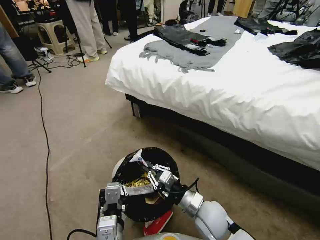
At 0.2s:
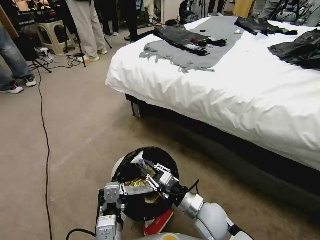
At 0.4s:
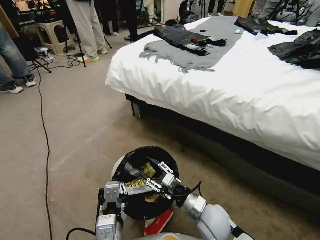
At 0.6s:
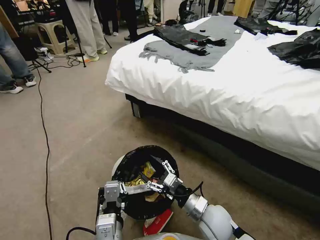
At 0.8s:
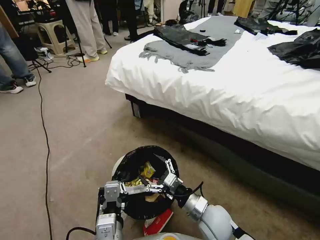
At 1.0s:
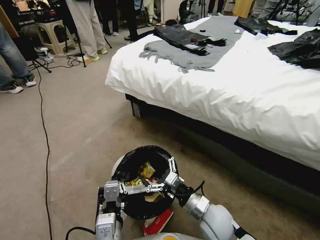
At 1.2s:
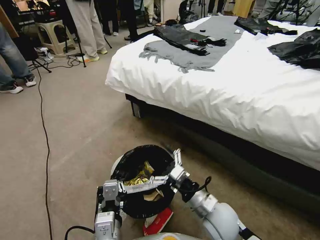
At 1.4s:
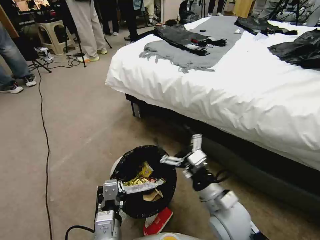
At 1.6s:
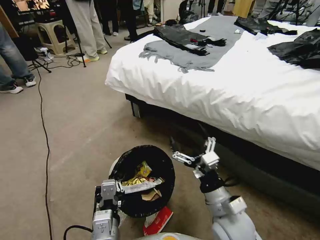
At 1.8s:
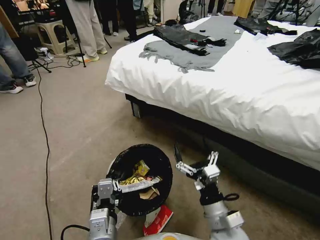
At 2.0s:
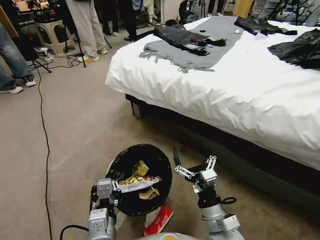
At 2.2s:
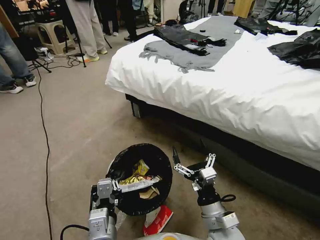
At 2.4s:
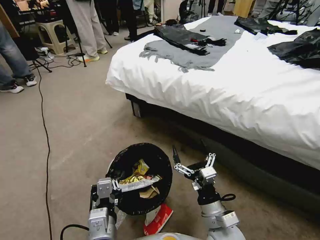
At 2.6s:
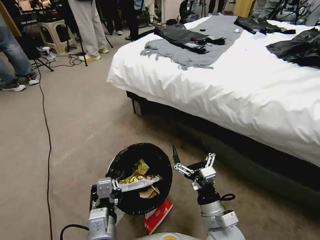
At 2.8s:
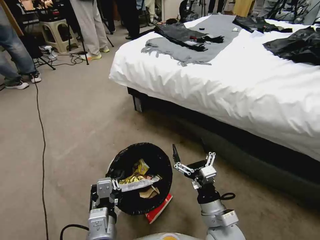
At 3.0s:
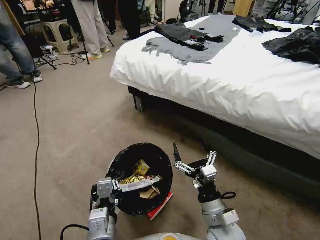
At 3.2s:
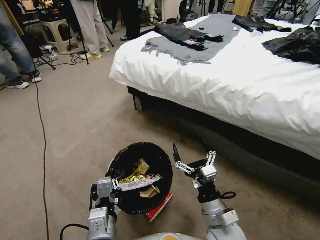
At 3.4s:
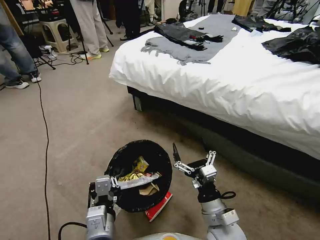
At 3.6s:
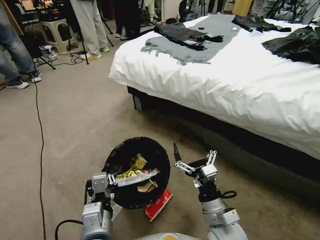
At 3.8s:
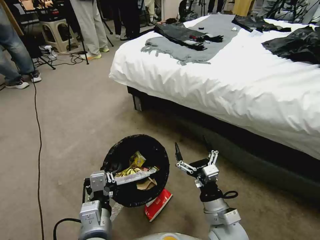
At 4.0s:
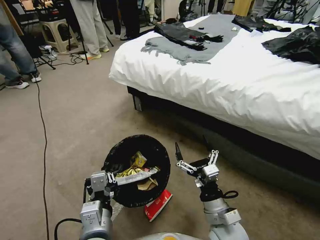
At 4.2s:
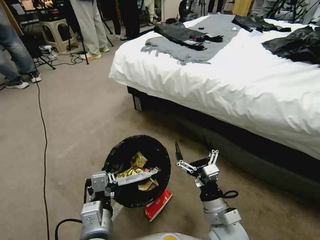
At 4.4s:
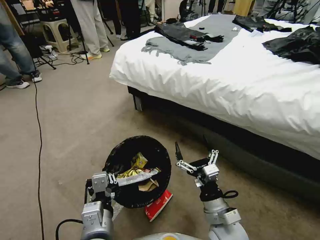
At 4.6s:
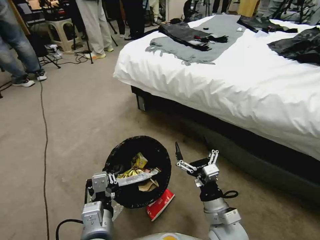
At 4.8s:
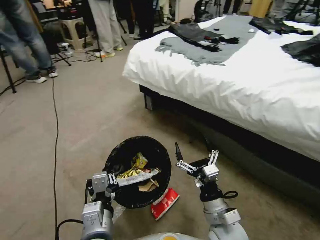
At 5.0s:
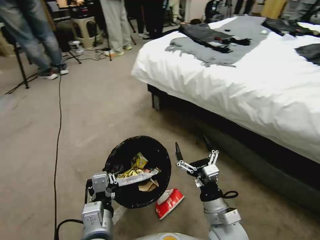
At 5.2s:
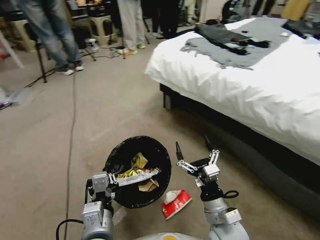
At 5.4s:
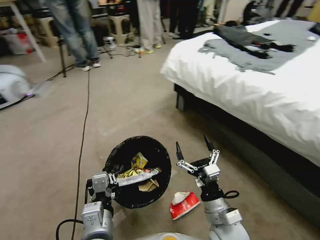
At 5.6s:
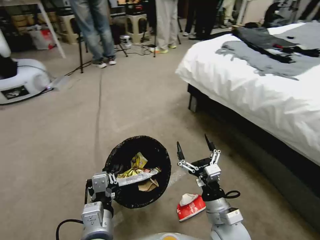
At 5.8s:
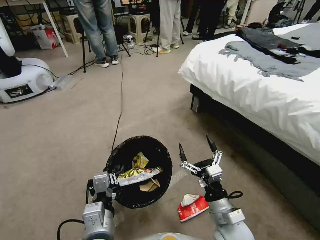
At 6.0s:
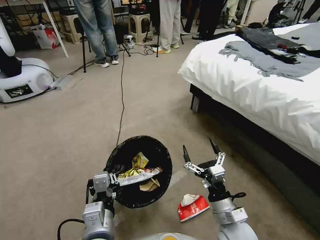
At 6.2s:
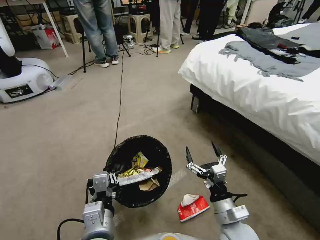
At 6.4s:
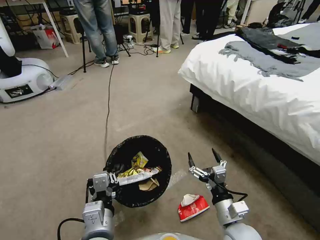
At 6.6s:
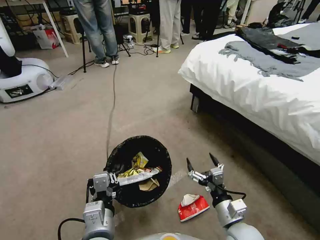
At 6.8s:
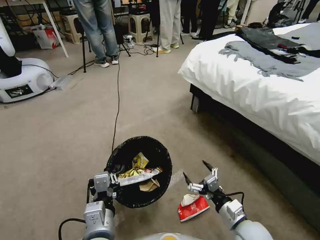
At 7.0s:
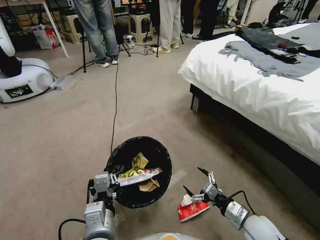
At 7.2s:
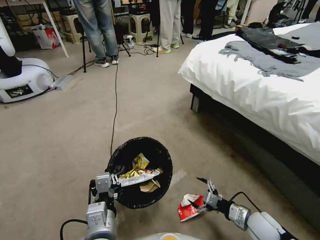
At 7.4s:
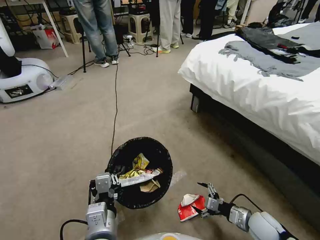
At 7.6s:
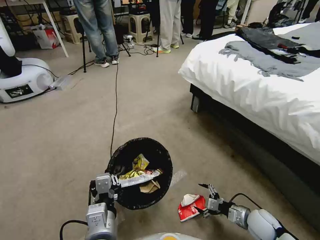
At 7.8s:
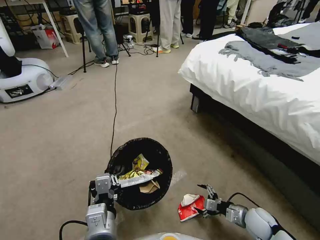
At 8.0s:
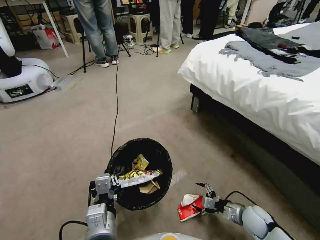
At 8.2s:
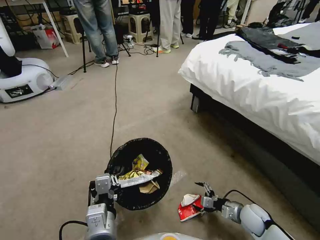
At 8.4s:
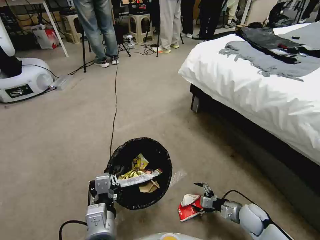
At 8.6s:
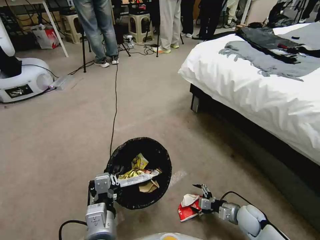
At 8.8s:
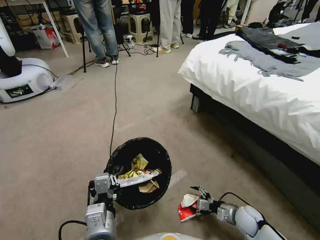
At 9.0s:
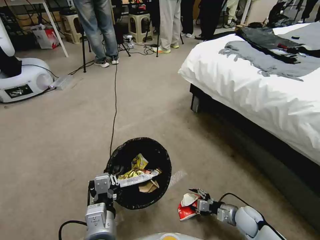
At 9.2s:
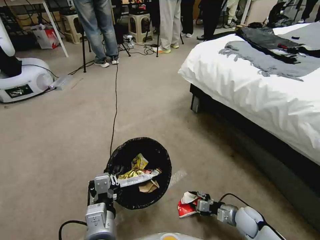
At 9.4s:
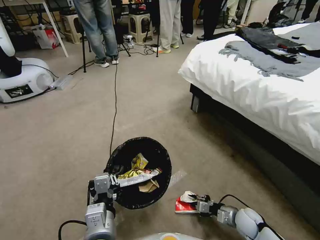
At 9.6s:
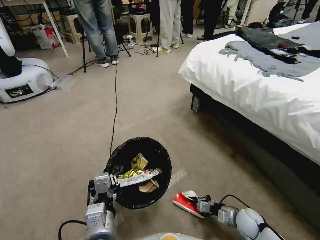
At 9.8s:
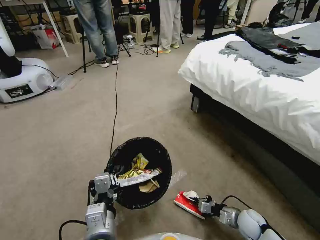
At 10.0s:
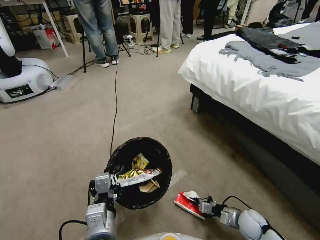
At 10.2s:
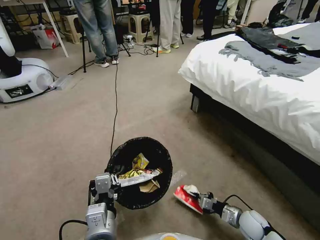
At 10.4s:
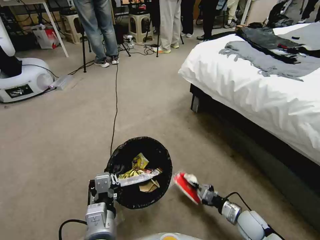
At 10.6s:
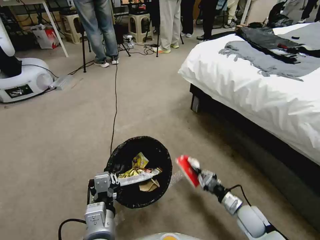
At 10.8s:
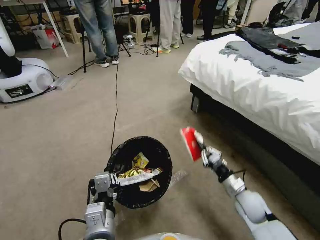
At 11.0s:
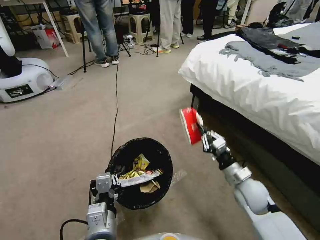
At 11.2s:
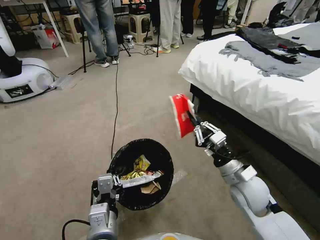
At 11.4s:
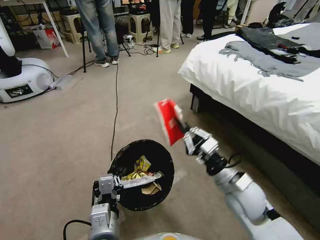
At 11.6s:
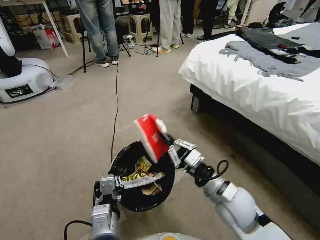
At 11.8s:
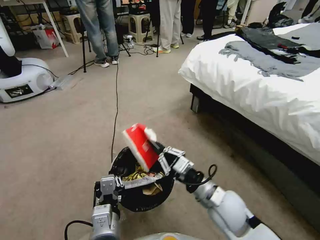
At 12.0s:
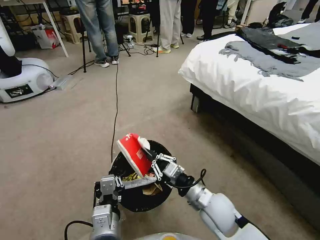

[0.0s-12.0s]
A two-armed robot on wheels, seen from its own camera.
Task of the whole recording: Pick up the trash bin, then pick up the garbage from the floor and place it into the trash bin.
0.0s to 1.6s: The right gripper goes about 10 cm upward, and opens.
1.6s to 3.0s: The right gripper goes some 5 cm downward.
3.0s to 4.4s: The grippers stay close to where they were, moving slightly.
6.0s to 7.6s: The right gripper moves to the right and downward, some 20 cm.
7.6s to 9.0s: The right gripper goes about 5 cm downward.
9.0s to 10.4s: The right gripper closes its fingers.
10.4s to 12.0s: The right gripper is displaced to the left and upward by roughly 25 cm.

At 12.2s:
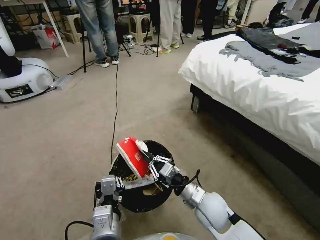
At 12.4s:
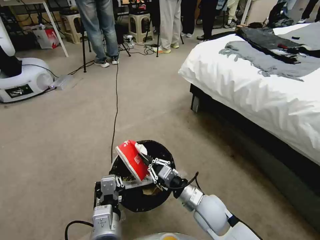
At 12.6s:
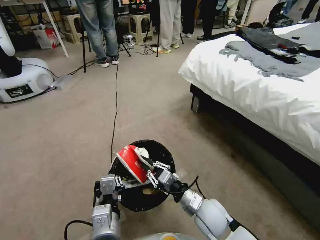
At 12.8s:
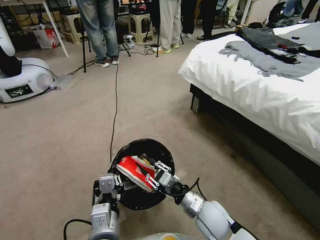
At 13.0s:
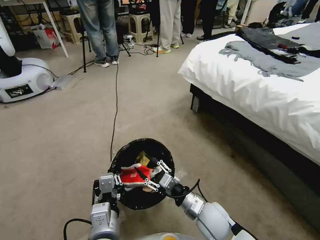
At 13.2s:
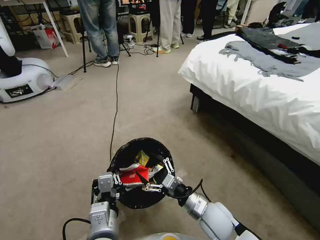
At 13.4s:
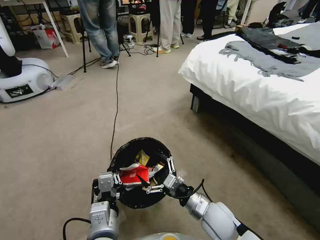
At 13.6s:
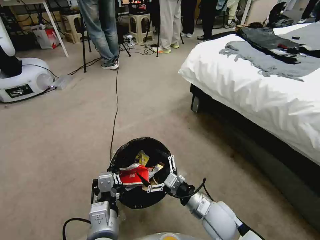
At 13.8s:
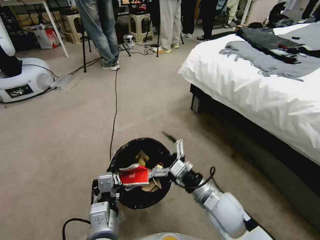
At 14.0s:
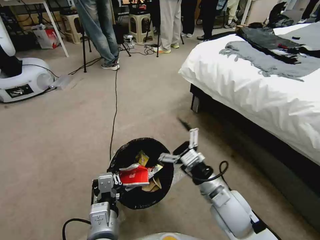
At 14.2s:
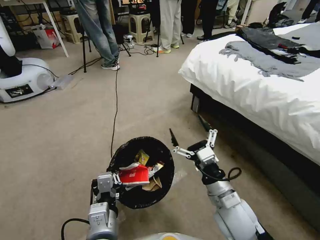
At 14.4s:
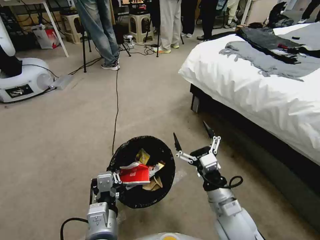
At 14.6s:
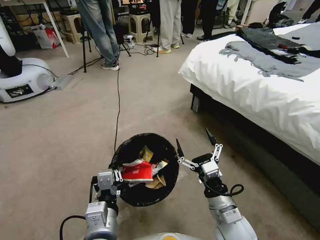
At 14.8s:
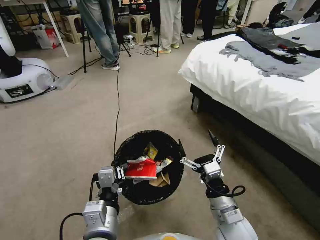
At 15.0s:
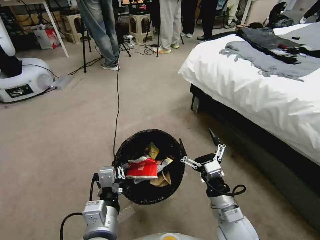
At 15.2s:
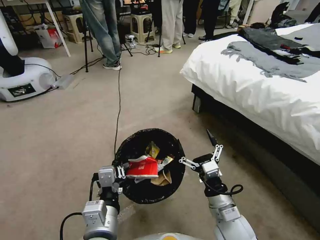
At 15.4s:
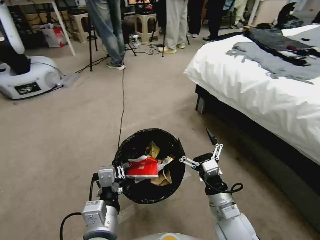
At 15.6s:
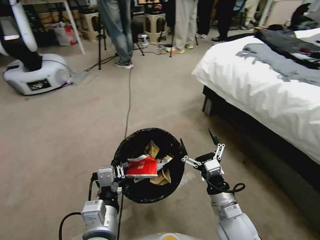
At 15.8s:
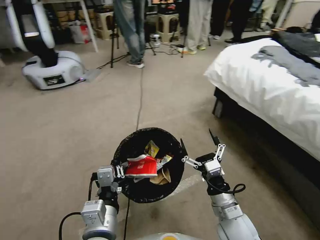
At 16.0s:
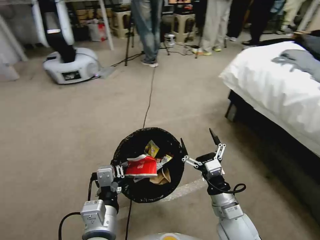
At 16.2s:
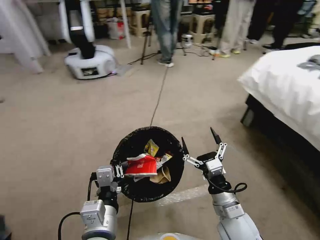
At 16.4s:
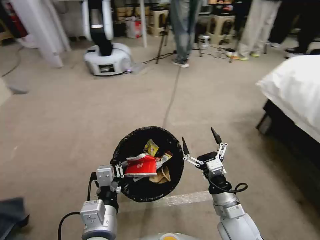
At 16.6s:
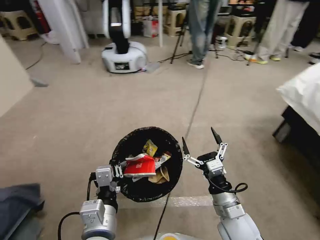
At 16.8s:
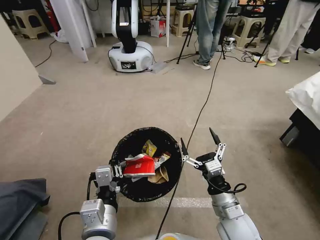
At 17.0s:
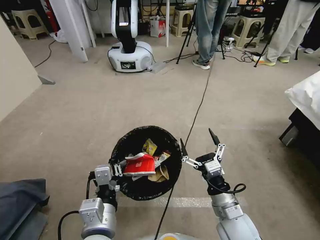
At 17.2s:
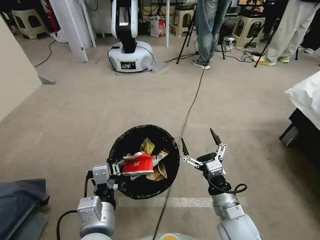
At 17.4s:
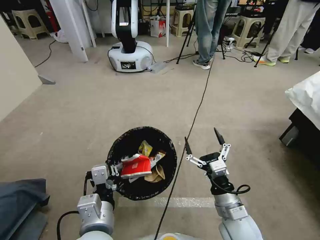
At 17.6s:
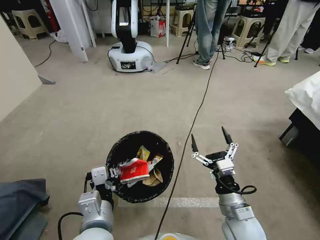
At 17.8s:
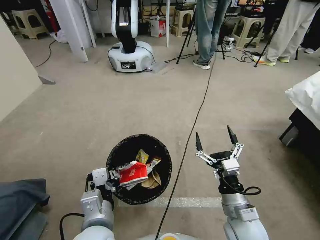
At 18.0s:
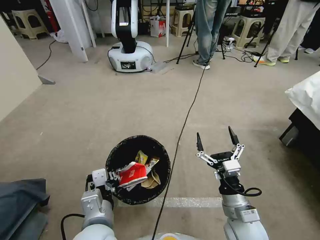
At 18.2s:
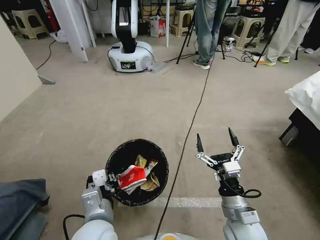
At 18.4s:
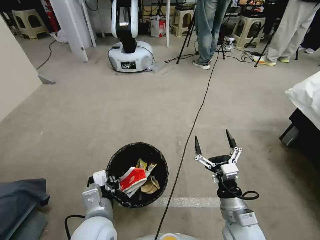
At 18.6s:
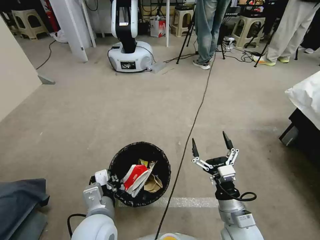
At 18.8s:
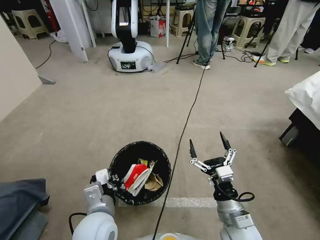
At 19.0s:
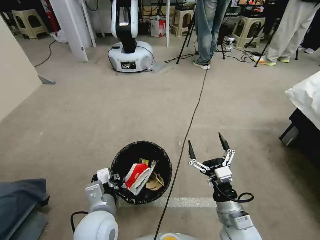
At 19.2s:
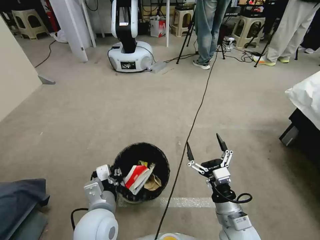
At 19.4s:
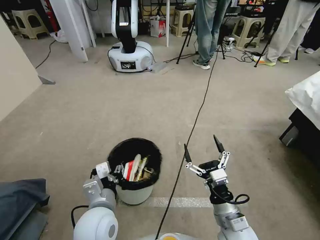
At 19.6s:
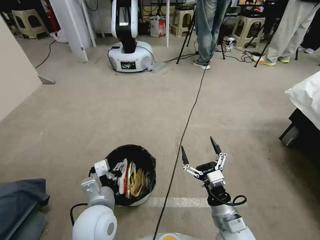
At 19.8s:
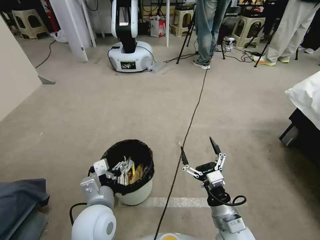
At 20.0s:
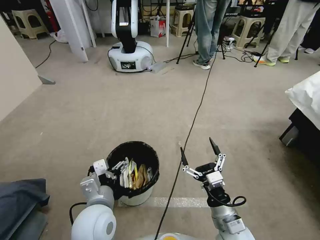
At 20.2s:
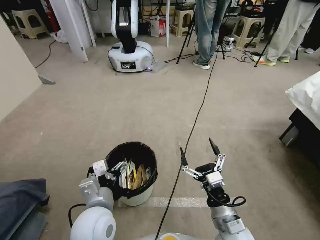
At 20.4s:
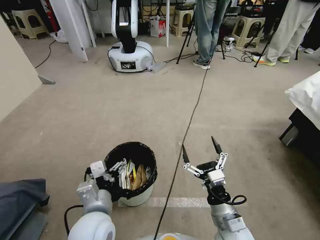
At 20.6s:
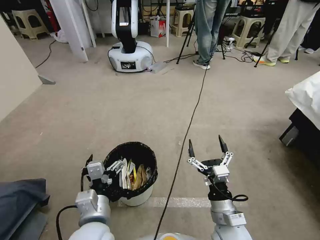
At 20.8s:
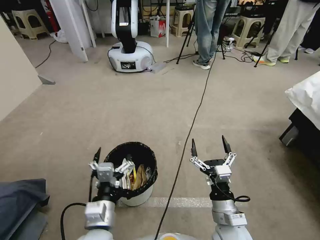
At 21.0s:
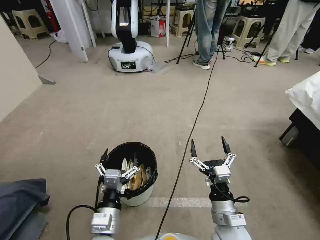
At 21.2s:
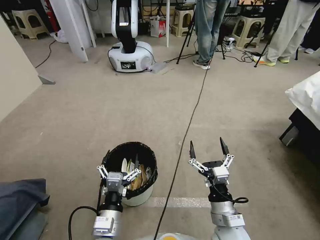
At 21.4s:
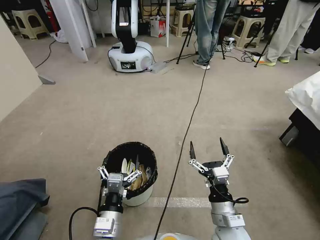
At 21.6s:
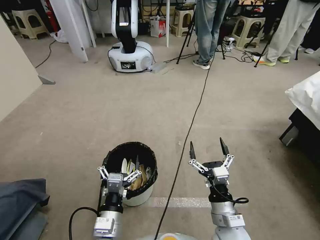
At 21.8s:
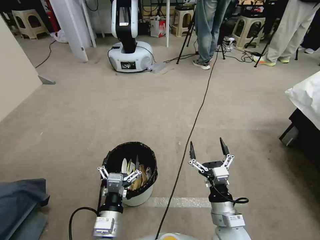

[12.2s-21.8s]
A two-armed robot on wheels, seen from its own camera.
Task of the whole recording: Pick up the trash bin, then pick up the garbage from the floor and place it into the trash bin.
12.2s to 13.8s: The right gripper opens up.
13.8s to 15.4s: The right gripper ends up roughly 5 cm from where it was.
17.0s to 18.6s: The left gripper shifts by some 5 cm.
18.6s to 20.2s: The left gripper opens up.
20.2s to 21.8s: The left gripper heads downward and backward, covering approximately 10 cm.

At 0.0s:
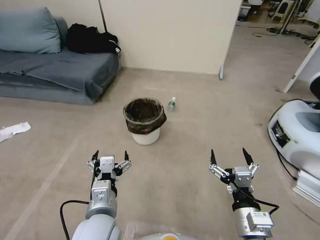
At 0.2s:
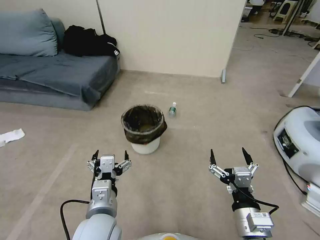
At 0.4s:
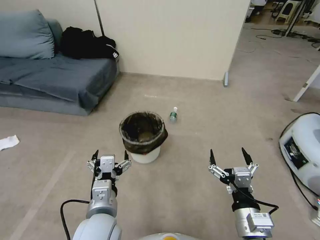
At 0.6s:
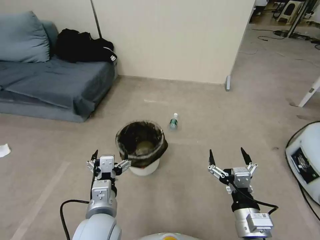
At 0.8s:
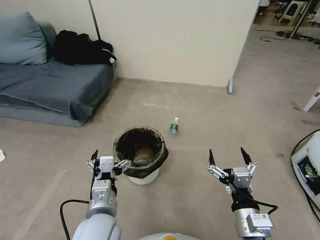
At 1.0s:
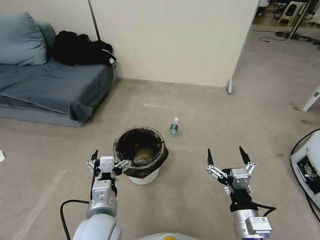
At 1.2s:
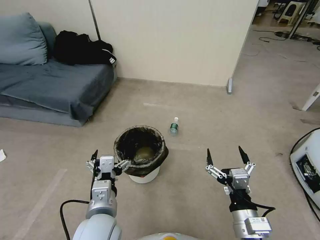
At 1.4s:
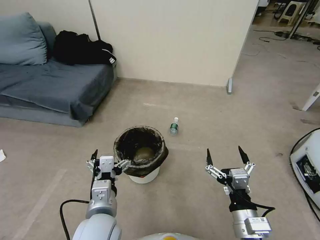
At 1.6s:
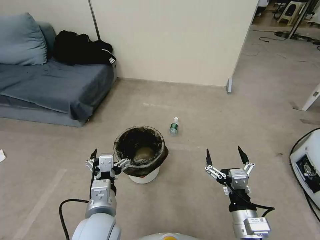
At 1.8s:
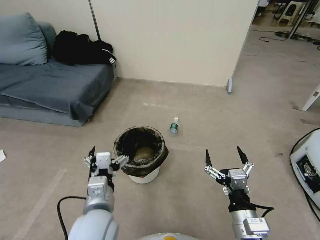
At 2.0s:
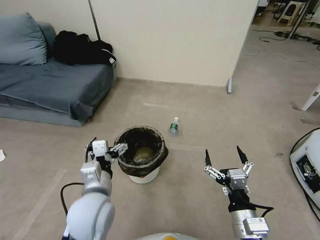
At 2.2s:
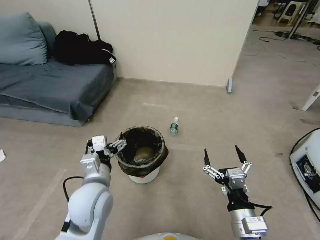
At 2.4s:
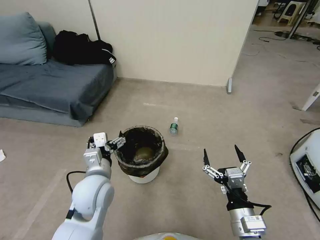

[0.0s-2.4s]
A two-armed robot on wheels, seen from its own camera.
Task of the whole recording: Pick up the trash bin, then pick up the garbage from the floor and place it into the trash bin.
1.2s to 2.4s: The left gripper heads forward, covering about 10 cm.
